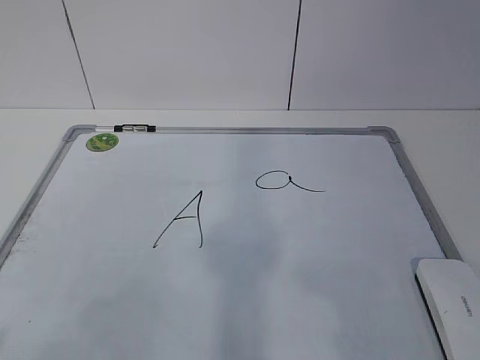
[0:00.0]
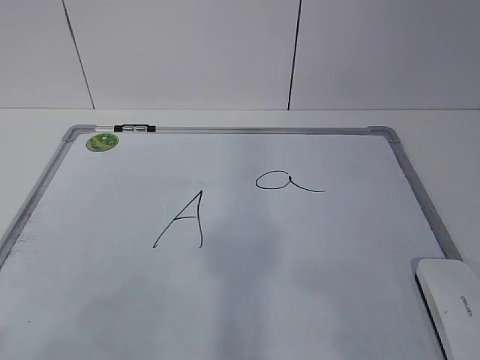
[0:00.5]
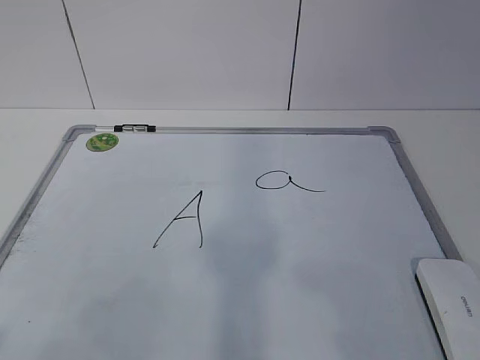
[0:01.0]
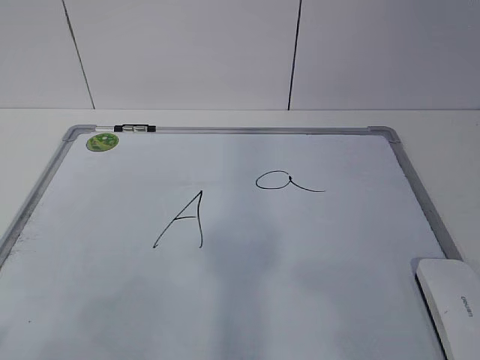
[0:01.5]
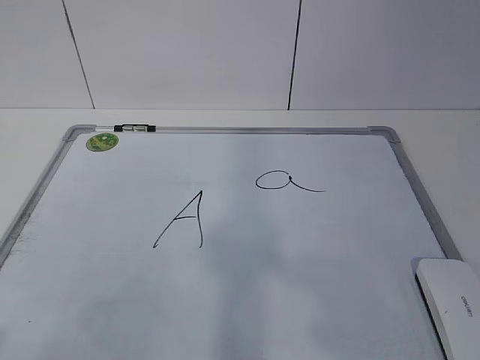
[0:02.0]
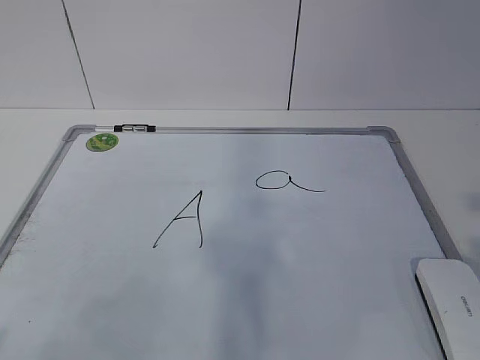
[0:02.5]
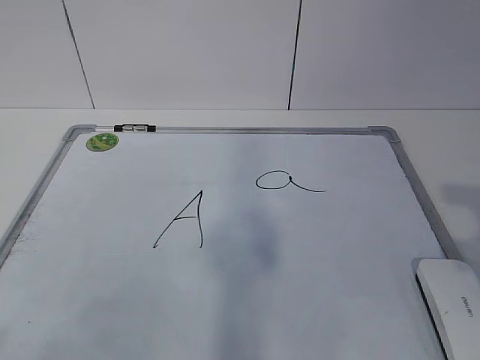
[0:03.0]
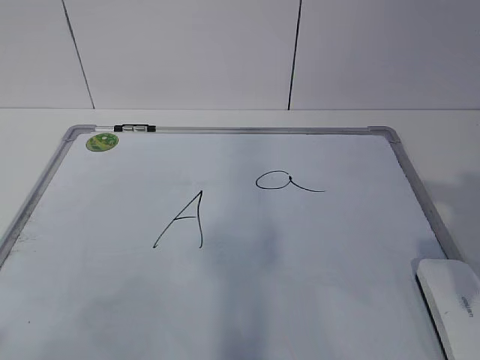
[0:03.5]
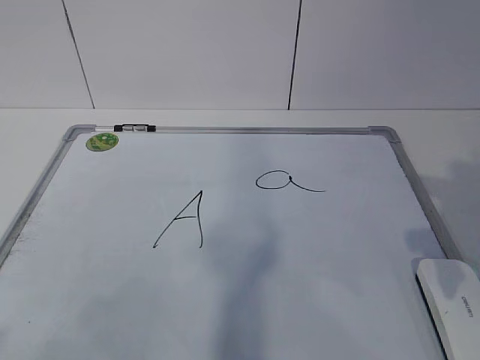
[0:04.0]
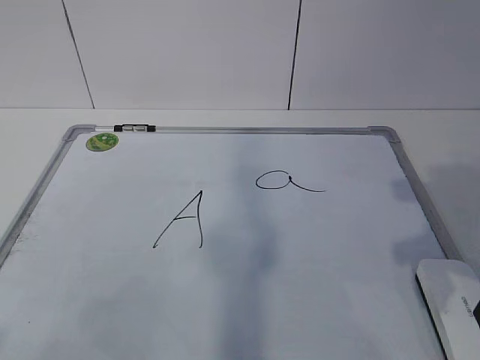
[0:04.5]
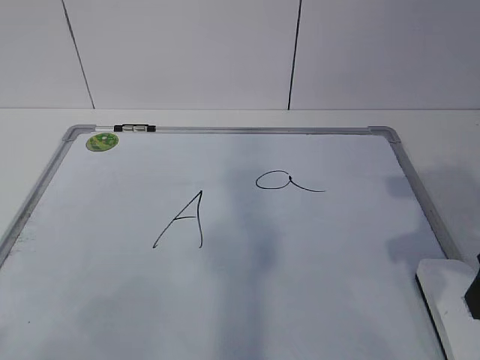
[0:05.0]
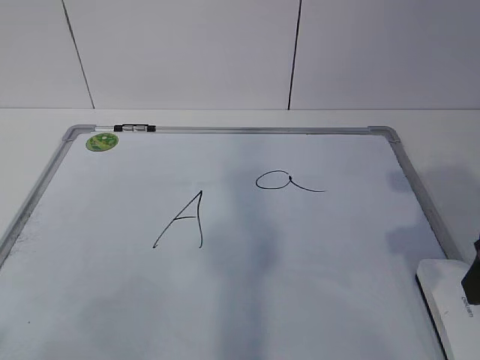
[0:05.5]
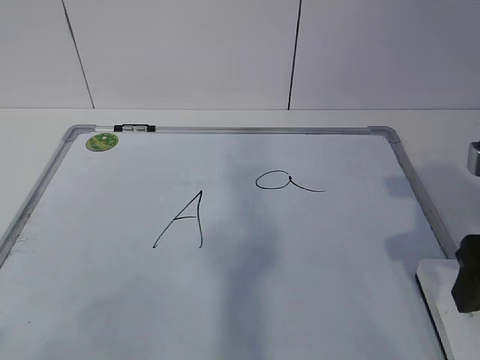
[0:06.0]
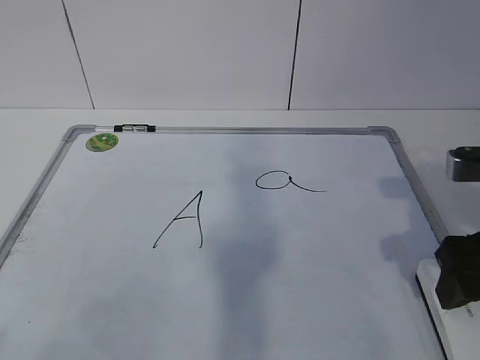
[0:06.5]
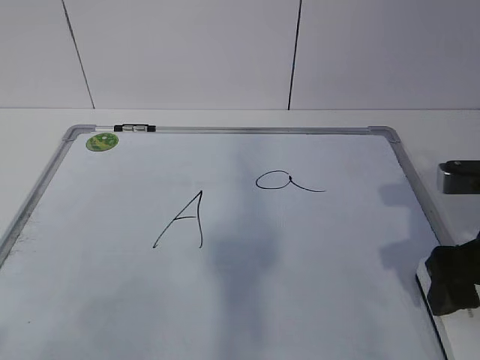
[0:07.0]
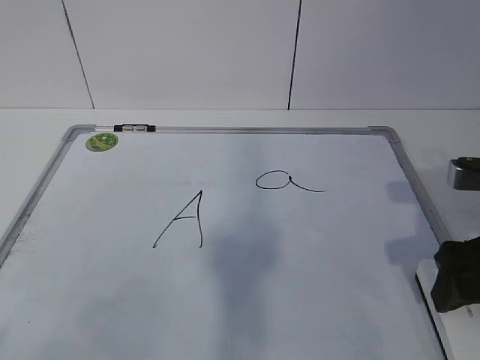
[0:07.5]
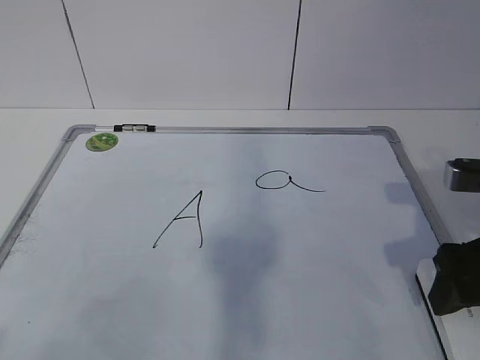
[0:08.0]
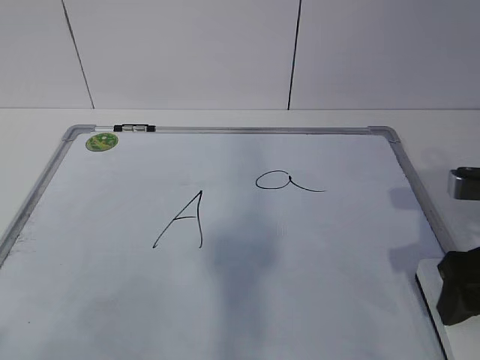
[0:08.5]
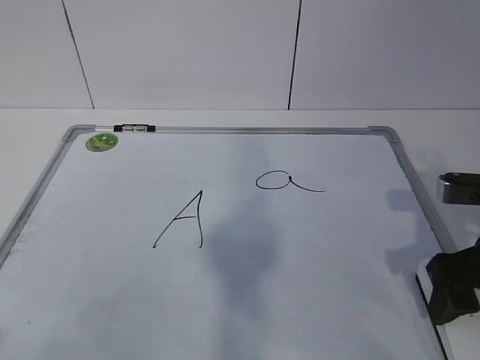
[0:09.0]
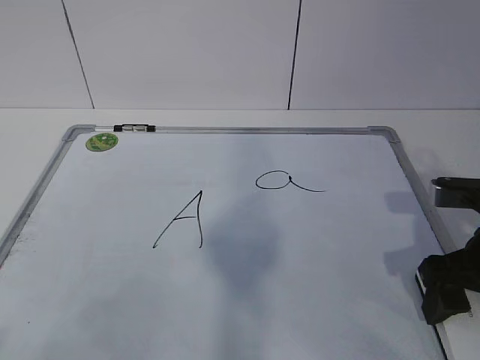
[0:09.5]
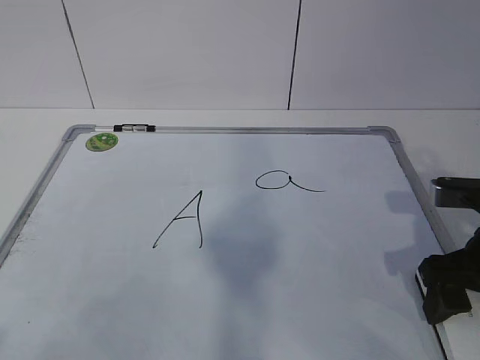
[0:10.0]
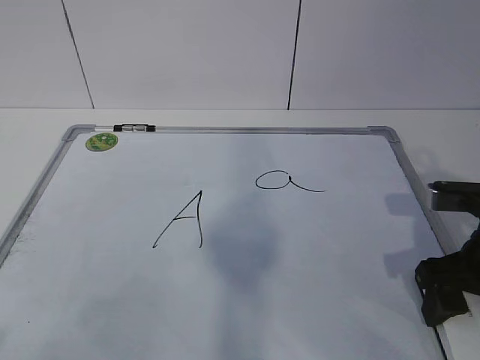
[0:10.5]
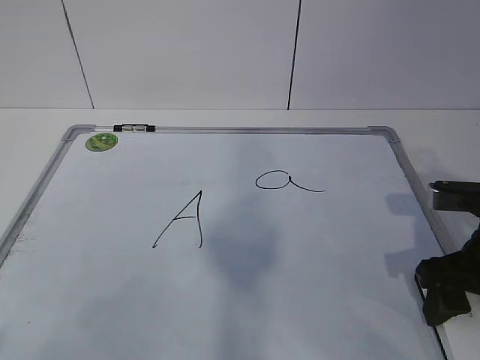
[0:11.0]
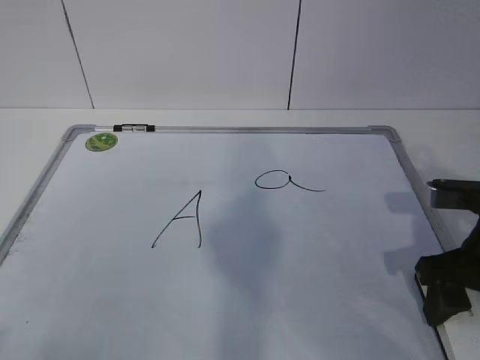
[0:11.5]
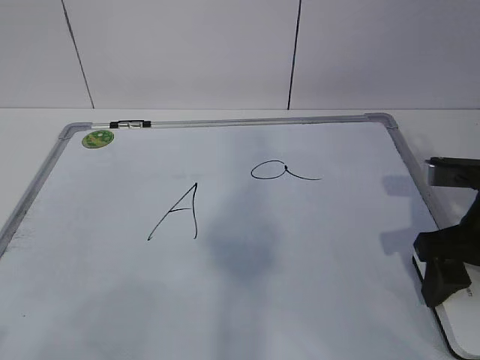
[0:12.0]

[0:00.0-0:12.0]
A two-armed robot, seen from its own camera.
Task of the whole recording: pick up the eraser on the blackboard and erase the letter "a".
Step, 0:00.0 to 0:09.0: Grab the eraser with your right hand.
0:02.0 to 0:04.0: The right gripper is displaced forward by roughly 20 cm.
0:04.0 to 0:06.0: The right gripper opens its fingers.
0:06.0 to 0:08.0: There are only small adjustments of the grippers.
0:08.0 to 0:10.0: The grippers make only small movements.
0:10.0 to 0:12.0: The right gripper closes.

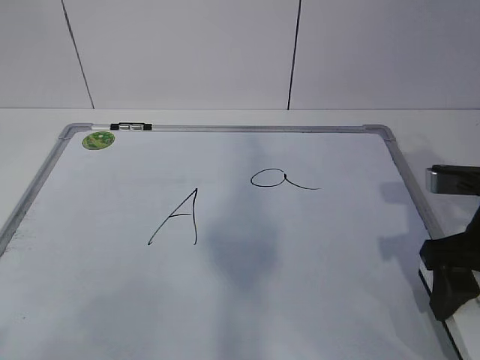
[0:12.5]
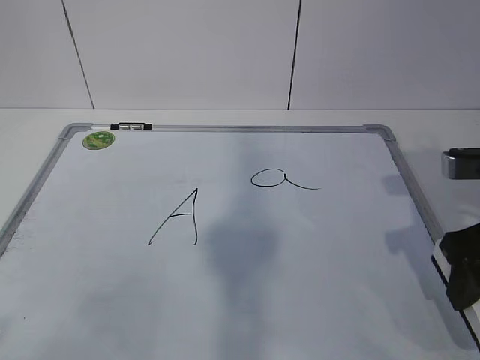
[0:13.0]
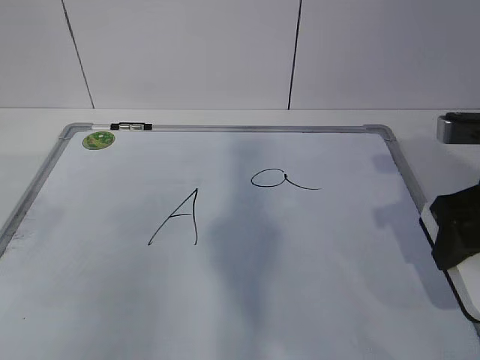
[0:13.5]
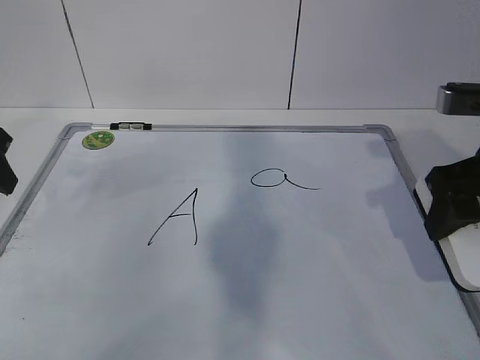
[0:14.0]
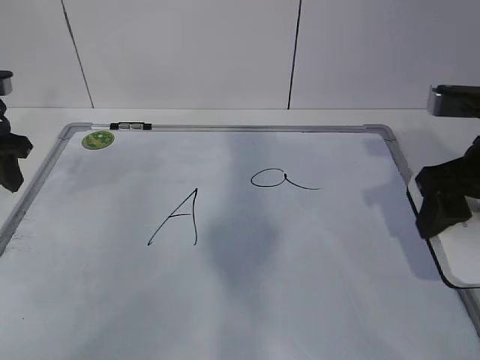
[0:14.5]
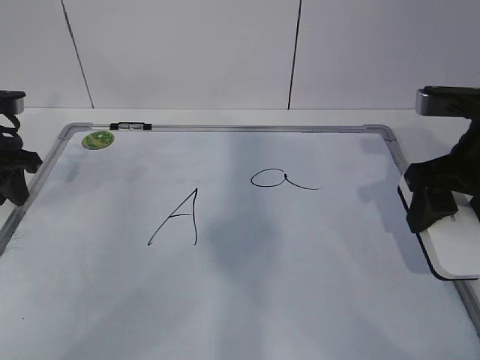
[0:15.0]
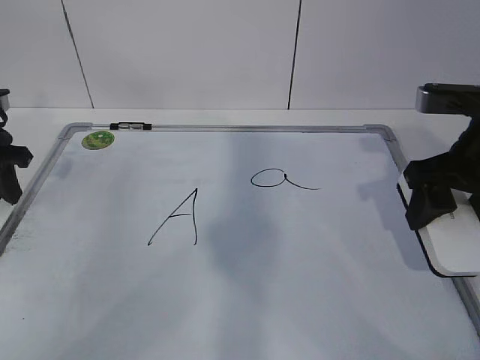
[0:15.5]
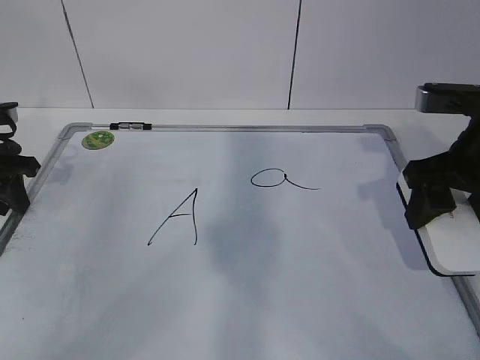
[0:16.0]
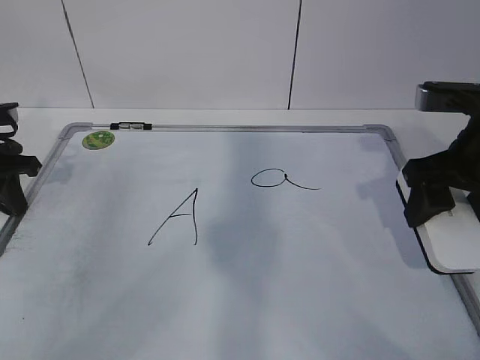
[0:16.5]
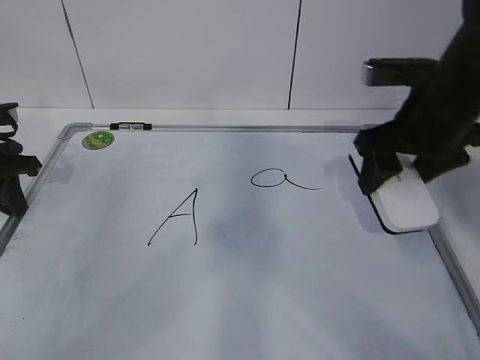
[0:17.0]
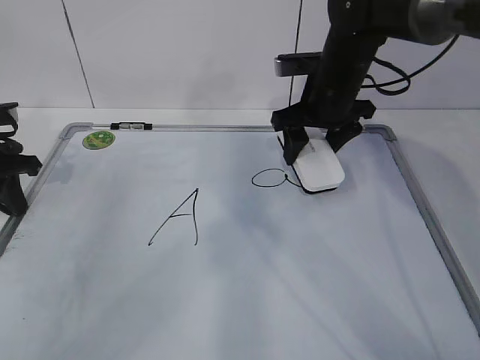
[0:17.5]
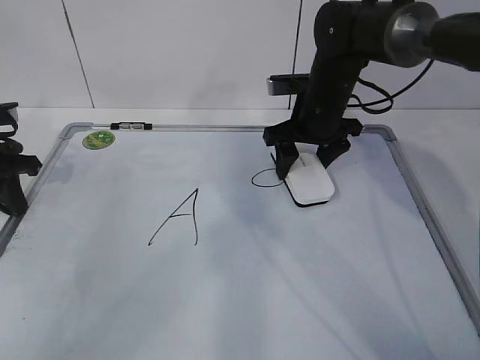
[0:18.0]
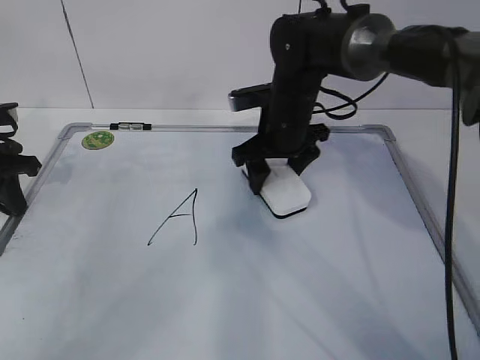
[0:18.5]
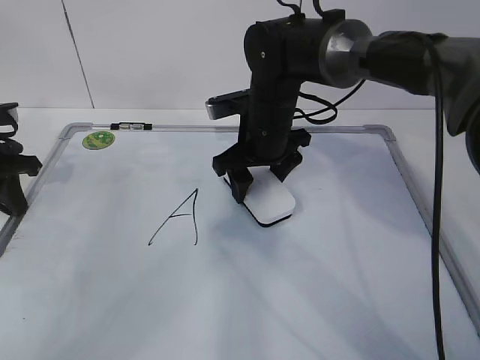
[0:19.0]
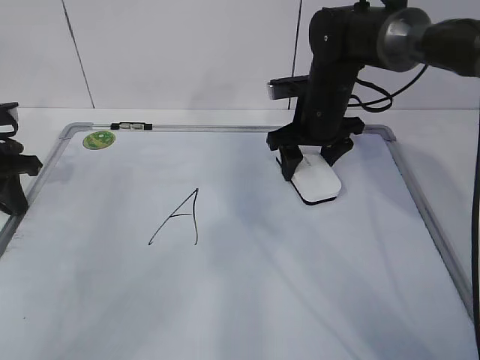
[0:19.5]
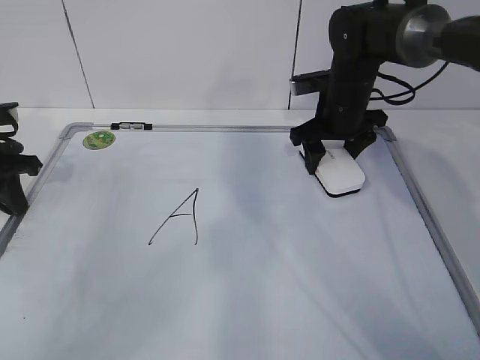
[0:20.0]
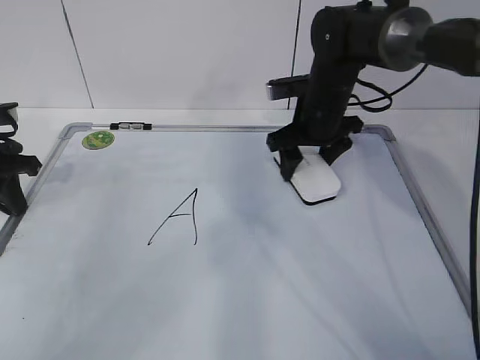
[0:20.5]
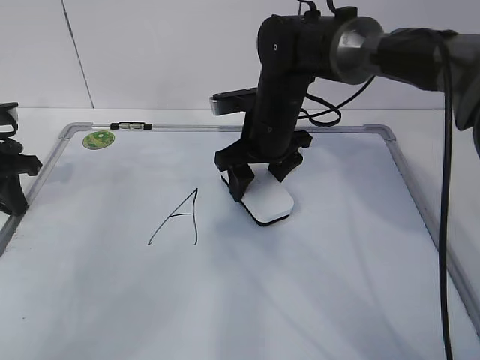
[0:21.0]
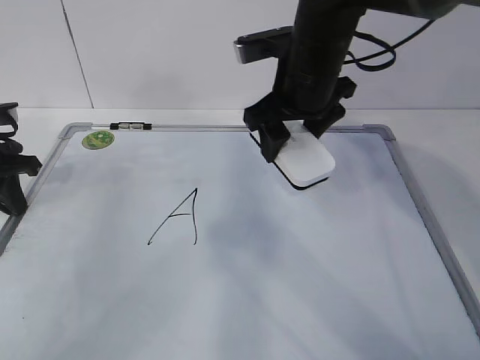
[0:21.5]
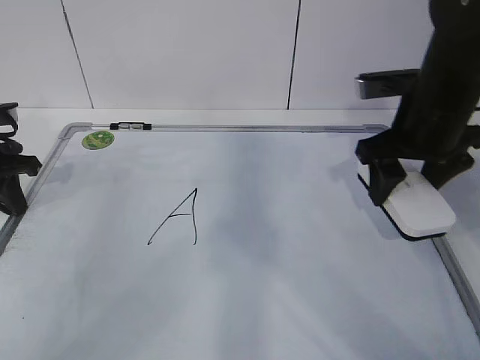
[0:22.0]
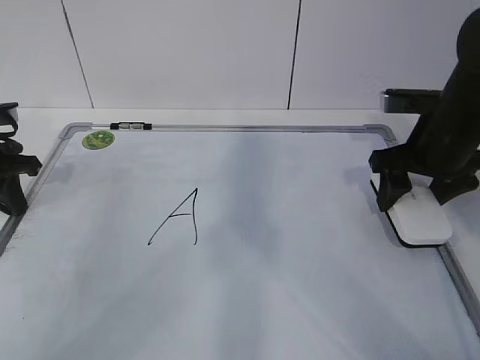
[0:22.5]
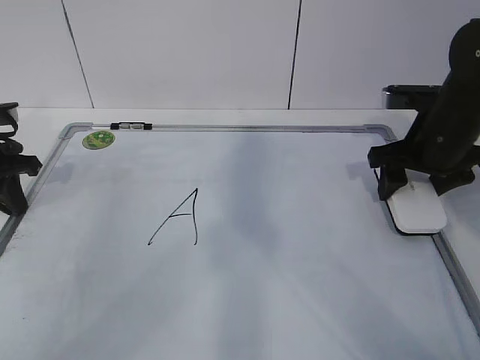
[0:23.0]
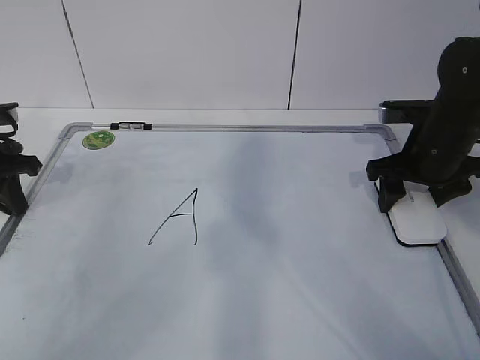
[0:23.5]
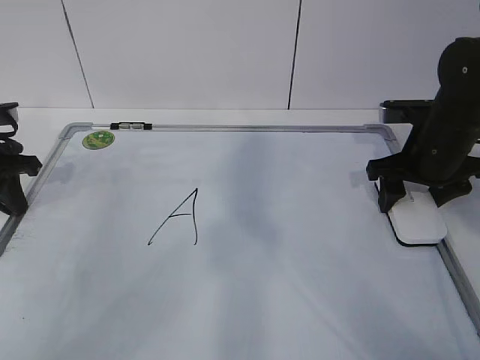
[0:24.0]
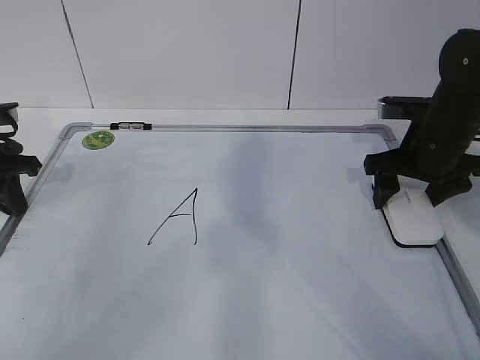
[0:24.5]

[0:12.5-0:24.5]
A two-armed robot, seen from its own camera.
Task of the whole recording: pick up the eraser on the blackboard and erase the letter "a".
Step, 0:14.0 to 0:17.0: Erase the letter a with your right hand.
Step, 0:18.0 to 0:20.0: Put down the eraser with your right hand.
0:12.5 to 0:14.5: The left gripper is displaced forward by roughly 35 cm, while the right gripper goes approximately 5 cm upward.
0:14.5 to 0:16.5: The left gripper ends up roughly 5 cm from where it was, and closes.
0:16.5 to 0:18.5: The right gripper moves to the left, forward and downward, some 25 cm.
0:18.5 to 0:20.5: The right gripper is displaced to the right by roughly 5 cm.
0:20.5 to 0:22.5: The right gripper heads to the right and backward, covering roughly 15 cm.
0:22.5 to 0:24.5: The right gripper opens up.

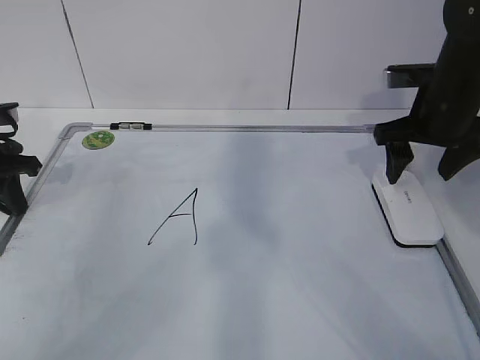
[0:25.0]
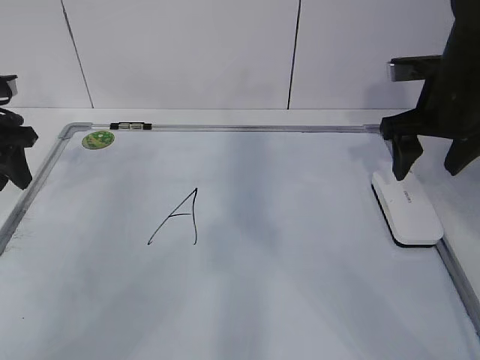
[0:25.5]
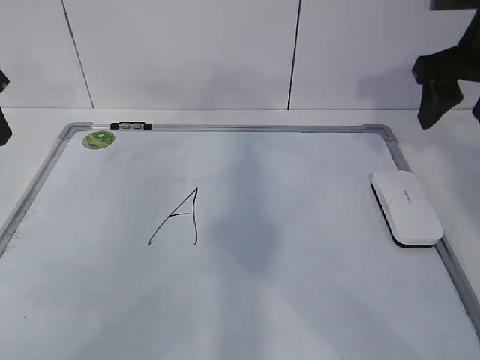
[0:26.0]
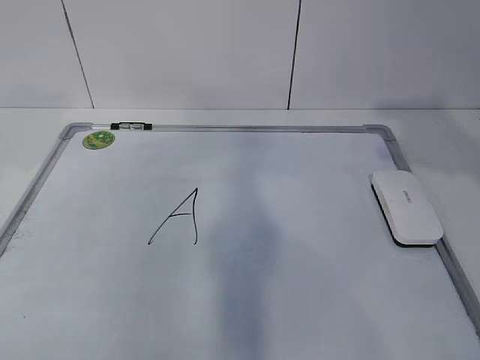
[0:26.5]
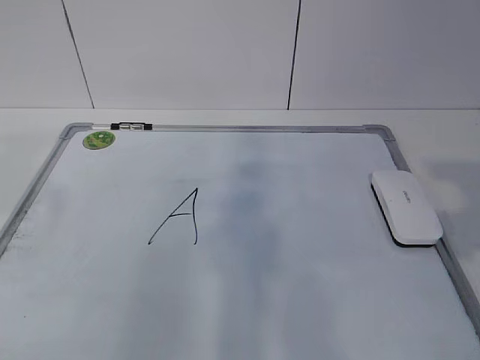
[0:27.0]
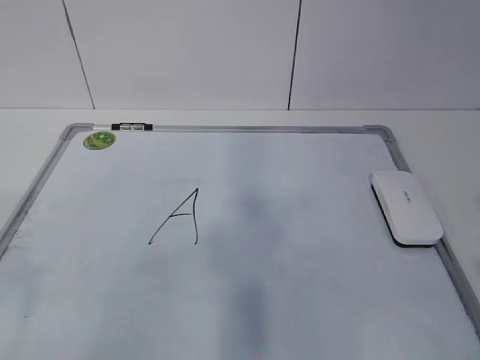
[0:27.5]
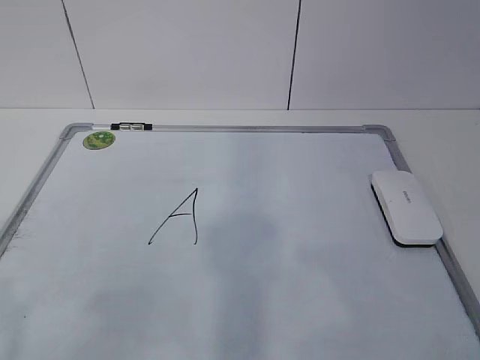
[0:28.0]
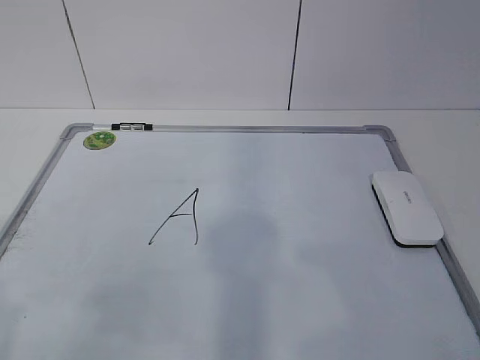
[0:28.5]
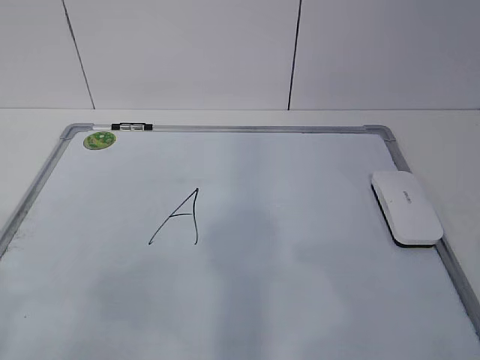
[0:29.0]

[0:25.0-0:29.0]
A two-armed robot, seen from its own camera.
Task of the whole recording: pick up the eraser on the blackboard and erase the letter "a".
0:25.0 to 0:27.0: Both grippers travel together backward and upward, roughly 30 cm. The right gripper closes up. Meanwhile the left gripper opens its fingers.
